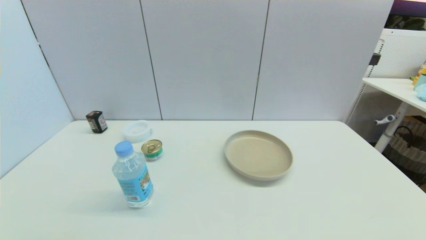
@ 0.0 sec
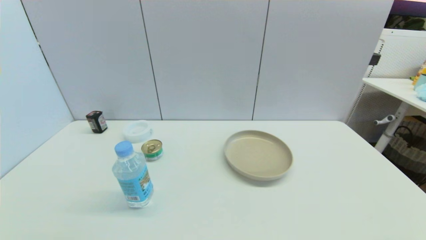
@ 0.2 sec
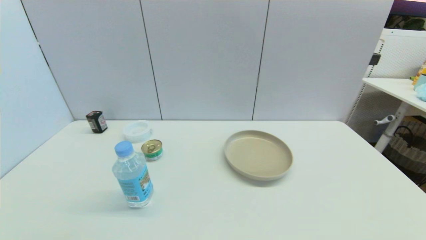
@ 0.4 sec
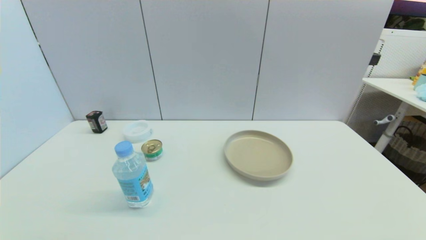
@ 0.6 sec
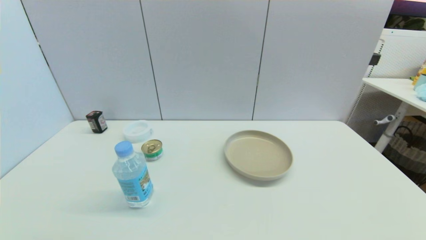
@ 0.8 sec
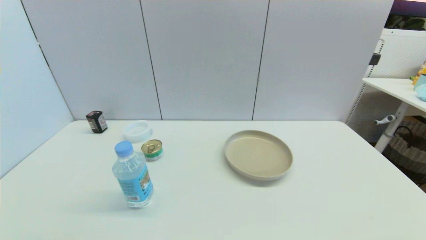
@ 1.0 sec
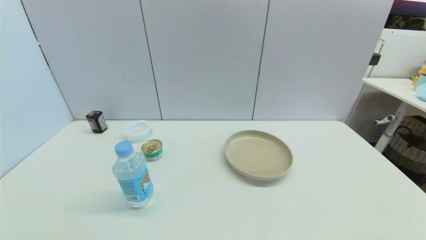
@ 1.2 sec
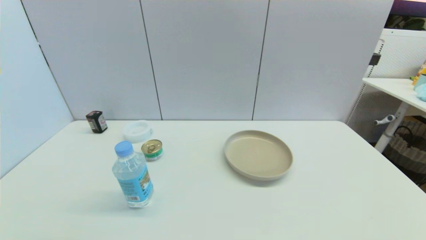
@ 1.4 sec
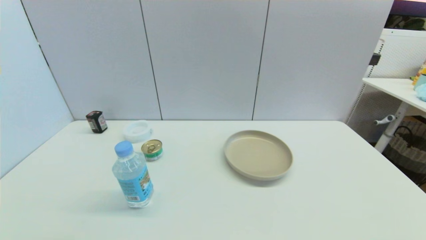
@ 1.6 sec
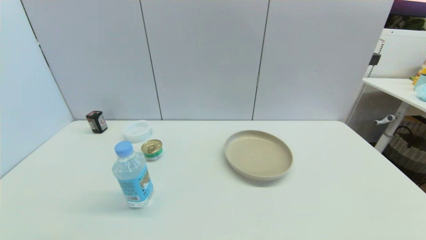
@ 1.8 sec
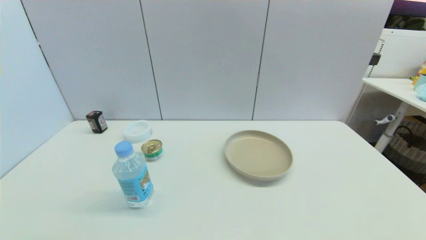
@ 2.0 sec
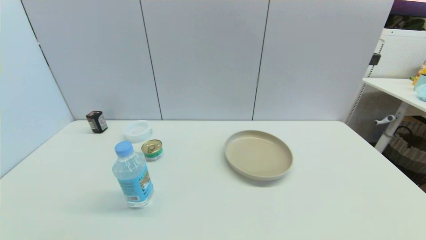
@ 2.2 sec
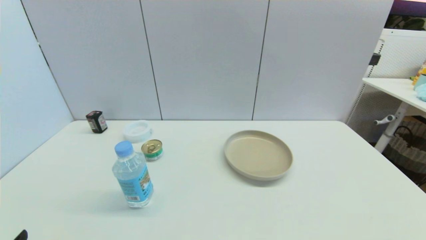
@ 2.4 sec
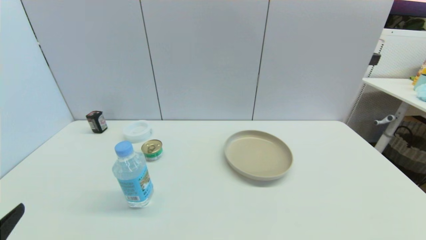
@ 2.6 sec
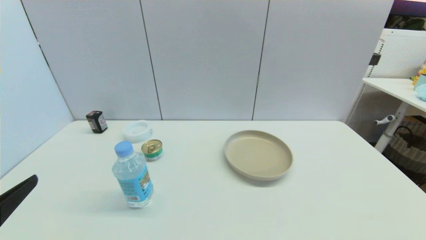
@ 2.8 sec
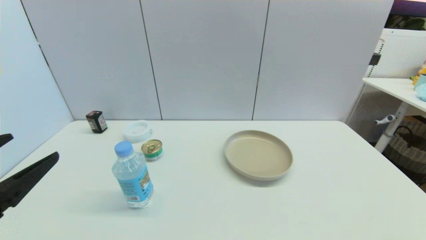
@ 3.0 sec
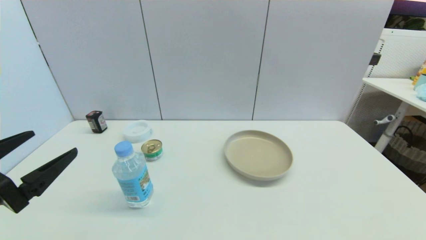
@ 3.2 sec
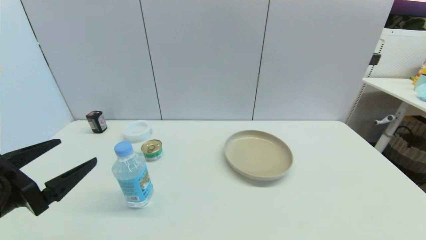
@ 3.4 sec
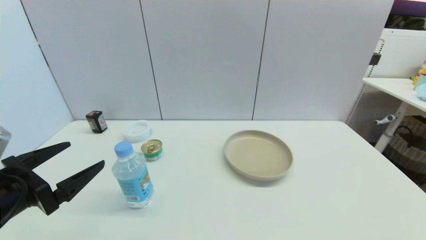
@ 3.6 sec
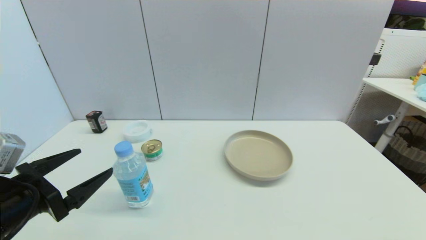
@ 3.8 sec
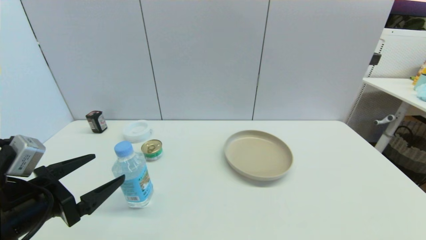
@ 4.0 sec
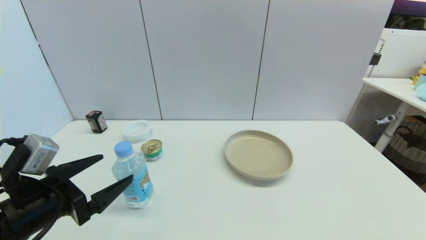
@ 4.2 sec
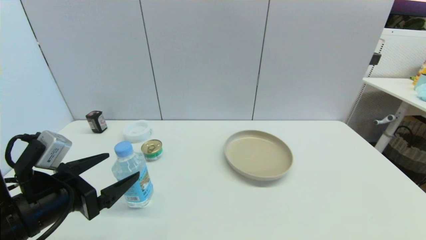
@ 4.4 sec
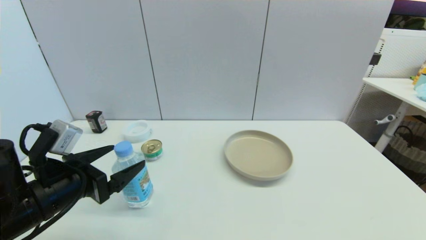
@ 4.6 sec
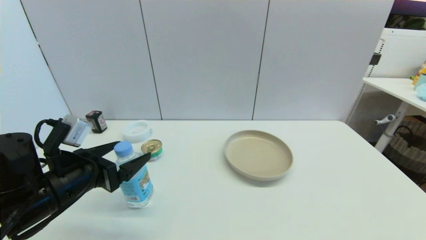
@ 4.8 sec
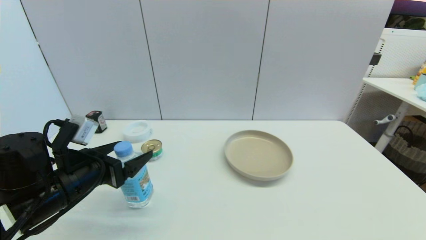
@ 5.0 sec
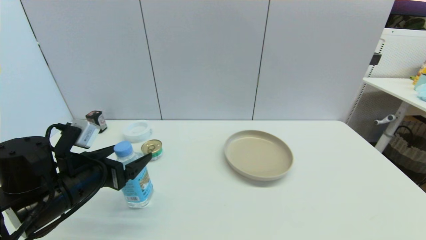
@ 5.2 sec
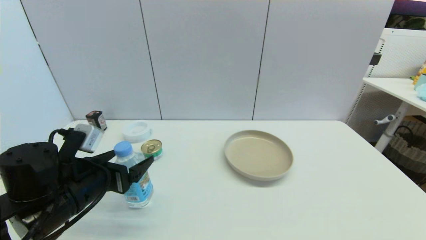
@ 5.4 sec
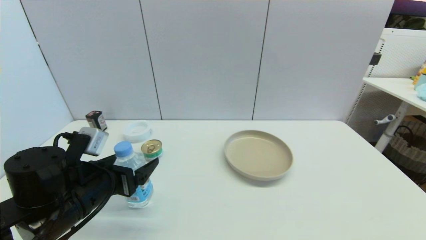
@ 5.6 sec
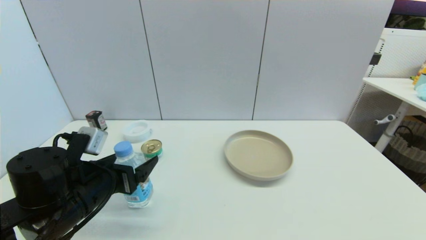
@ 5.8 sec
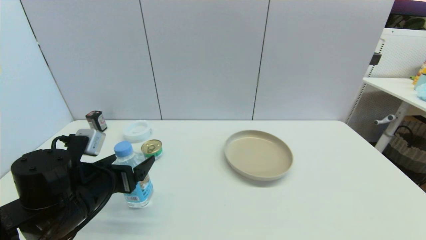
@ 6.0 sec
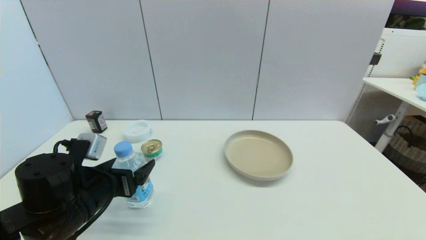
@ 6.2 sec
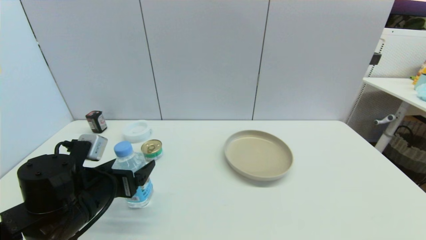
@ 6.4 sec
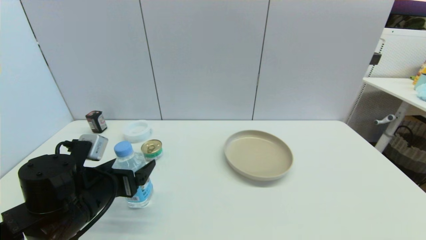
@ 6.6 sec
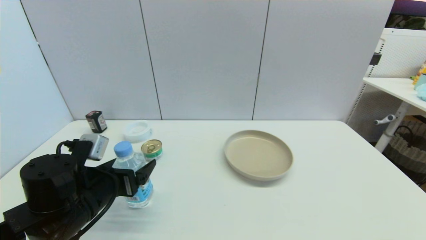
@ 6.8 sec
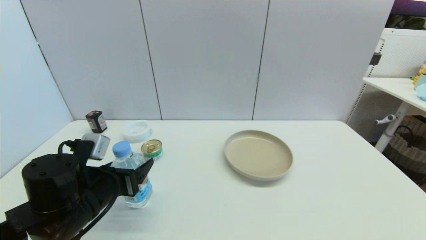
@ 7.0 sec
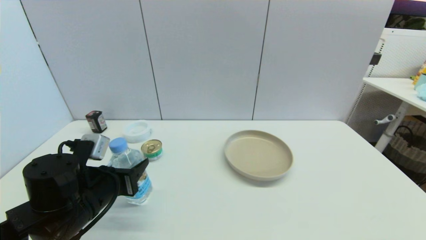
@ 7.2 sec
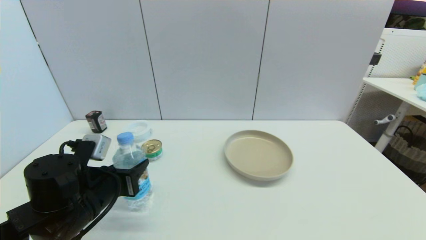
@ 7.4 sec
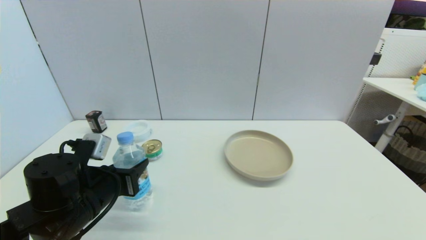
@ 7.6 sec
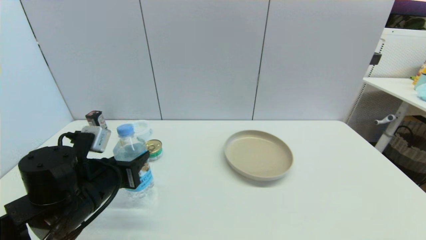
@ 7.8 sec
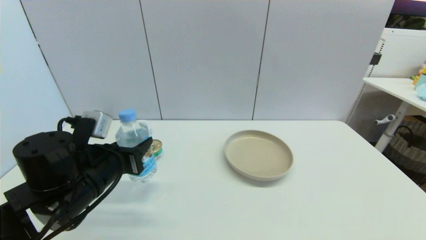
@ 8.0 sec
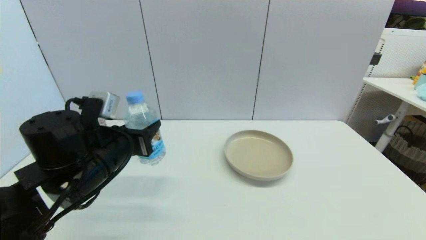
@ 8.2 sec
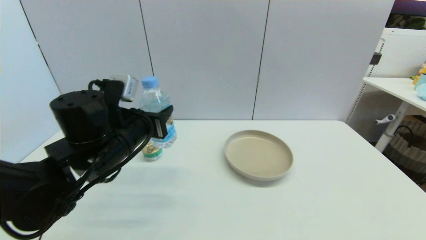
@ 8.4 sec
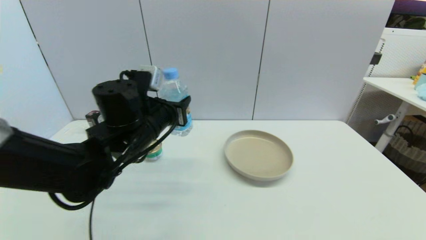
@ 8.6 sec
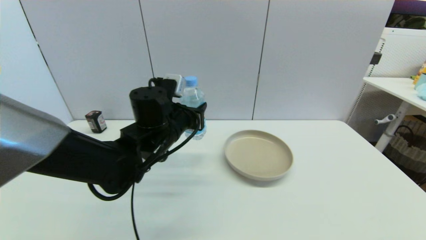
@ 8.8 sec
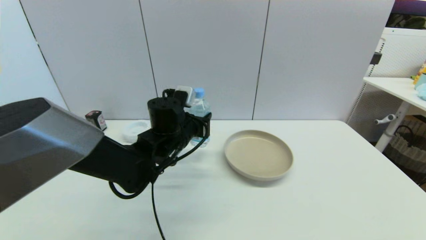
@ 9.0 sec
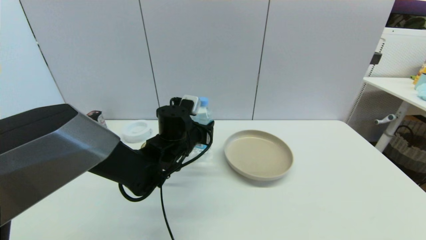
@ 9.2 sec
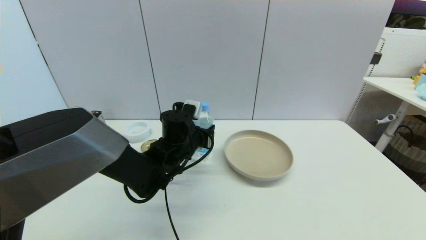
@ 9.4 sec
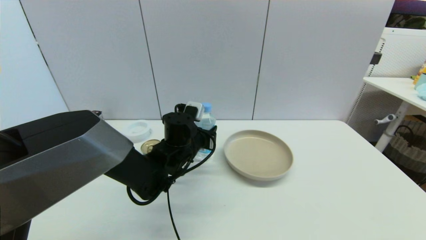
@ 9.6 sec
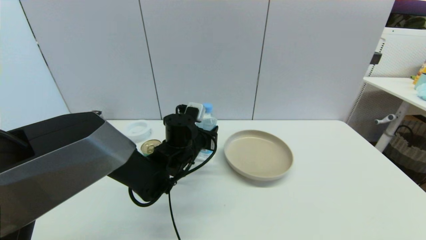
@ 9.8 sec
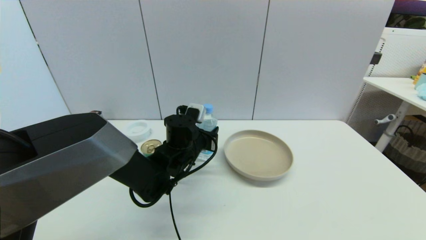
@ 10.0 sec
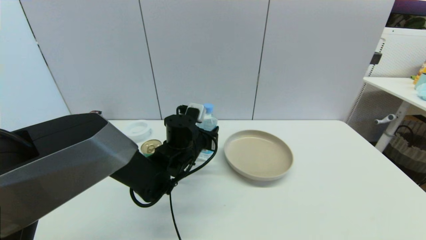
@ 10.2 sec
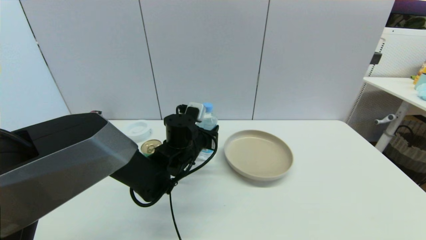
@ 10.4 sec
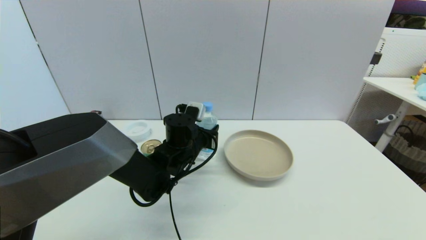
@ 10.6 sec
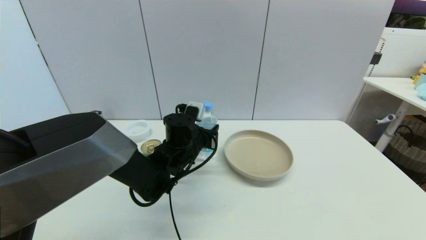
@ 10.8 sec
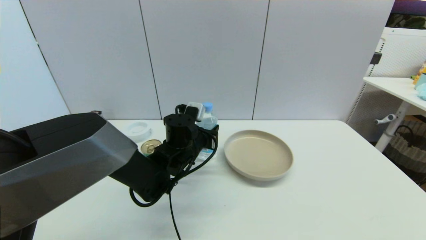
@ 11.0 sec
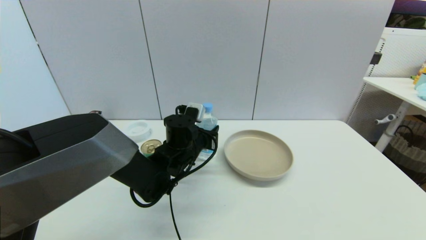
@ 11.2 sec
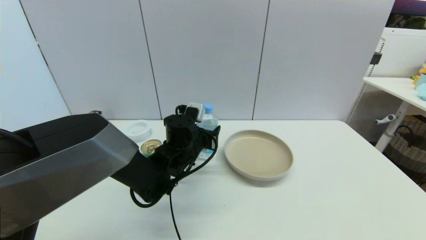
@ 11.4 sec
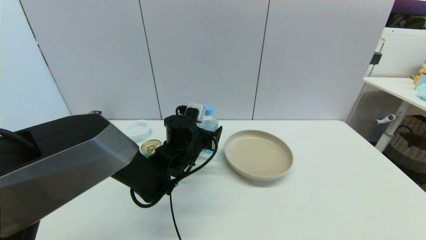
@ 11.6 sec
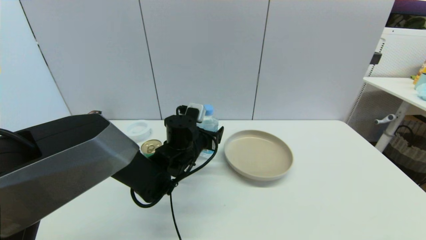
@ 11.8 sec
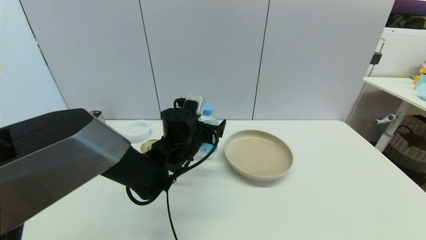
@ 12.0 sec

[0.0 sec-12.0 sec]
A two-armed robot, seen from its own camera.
Step, 2.2 sec to 7.6 sec: Grasp the soda water with left gripper.
Step, 7.8 sec to 11.8 sec: Place the soda water on the table with left gripper.
1.6 sec to 3.0 sec: The left gripper travels upward and forward by some 15 cm.
3.0 sec to 4.4 sec: The left gripper goes approximately 10 cm forward and downward.
4.4 sec to 6.0 sec: The left gripper shifts by roughly 5 cm.
6.0 sec to 7.6 sec: The left gripper closes up.
7.6 sec to 9.0 sec: The left gripper is displaced to the right and forward by roughly 20 cm.
9.0 sec to 10.4 sec: The grippers move only a little.
10.4 sec to 12.0 sec: The left gripper opens its fingers.

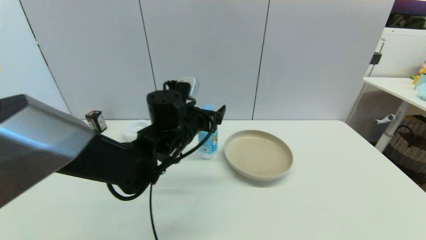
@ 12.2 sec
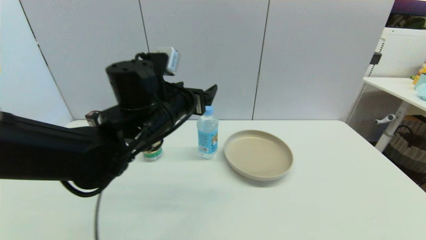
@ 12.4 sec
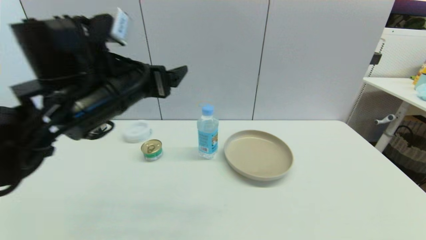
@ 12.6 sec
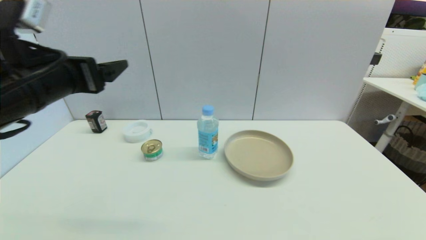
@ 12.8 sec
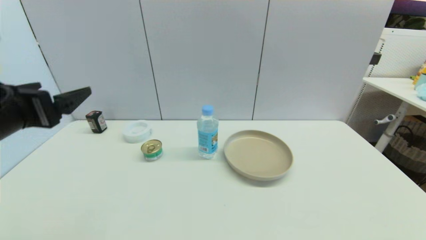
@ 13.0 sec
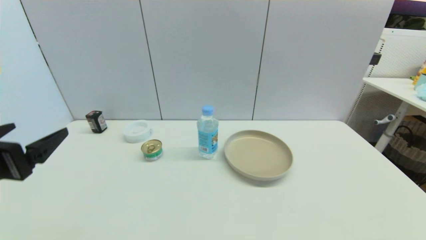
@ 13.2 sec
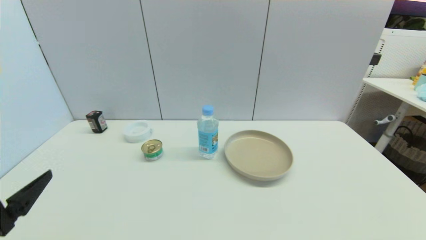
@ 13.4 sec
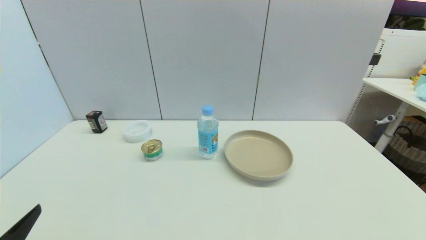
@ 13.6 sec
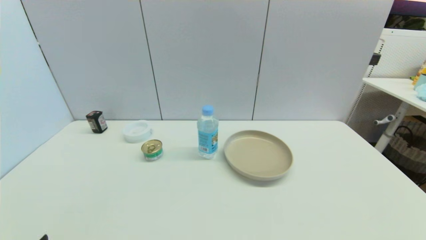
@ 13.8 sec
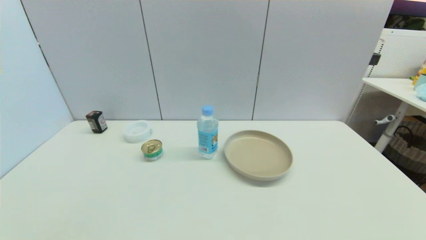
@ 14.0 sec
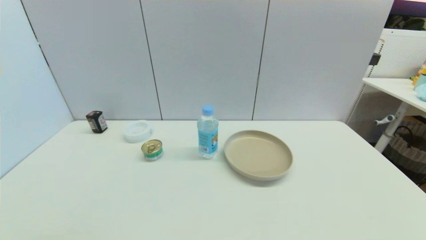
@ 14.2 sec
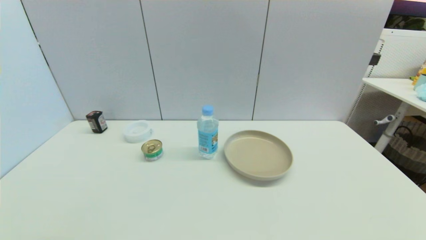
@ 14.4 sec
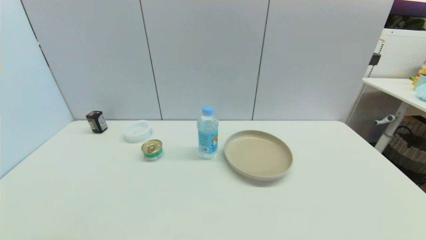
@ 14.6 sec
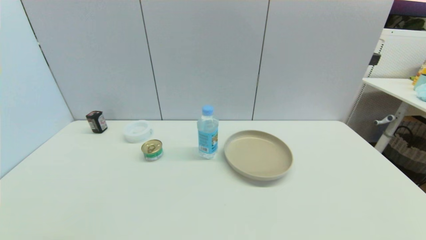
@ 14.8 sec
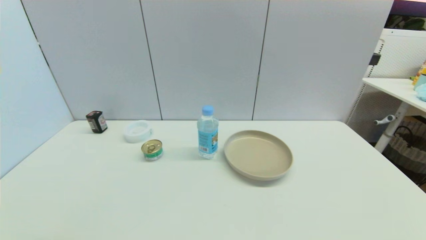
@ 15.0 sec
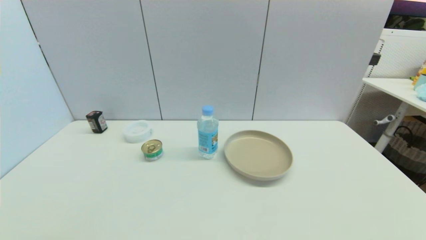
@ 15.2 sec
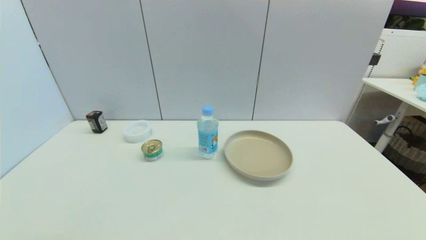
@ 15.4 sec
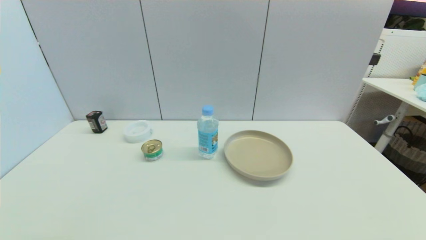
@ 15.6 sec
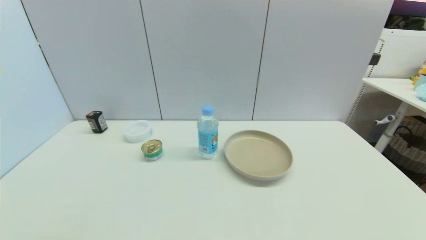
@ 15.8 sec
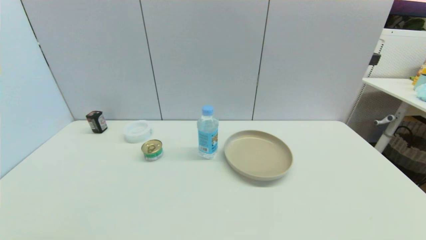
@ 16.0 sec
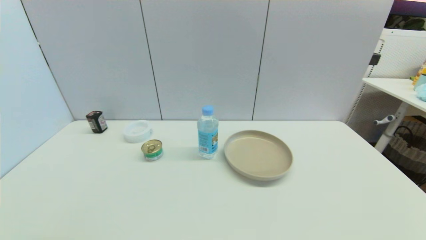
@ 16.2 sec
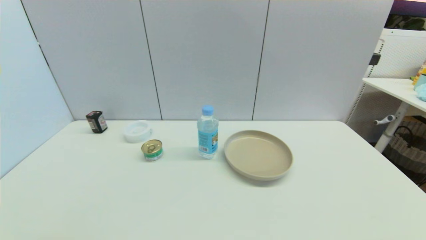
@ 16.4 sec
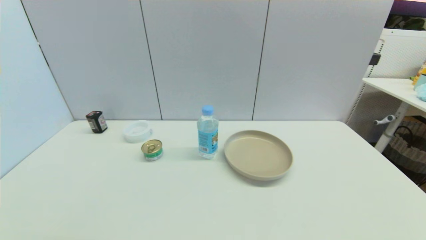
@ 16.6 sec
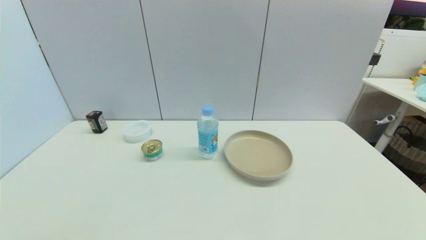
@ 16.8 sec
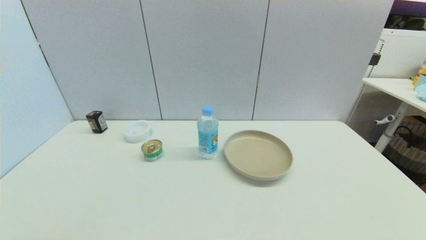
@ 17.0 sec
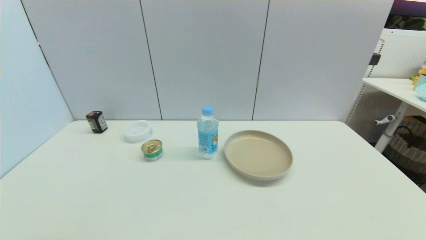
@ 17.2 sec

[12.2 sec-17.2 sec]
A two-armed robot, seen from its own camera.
12.2 sec to 13.8 sec: The left gripper moves backward and to the left, about 40 cm.
